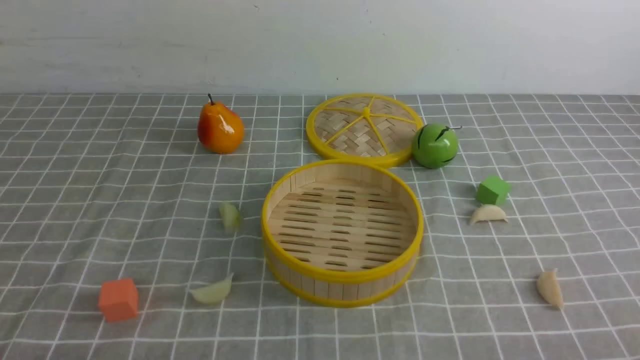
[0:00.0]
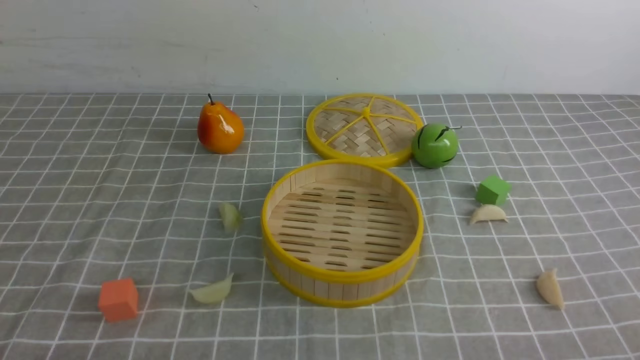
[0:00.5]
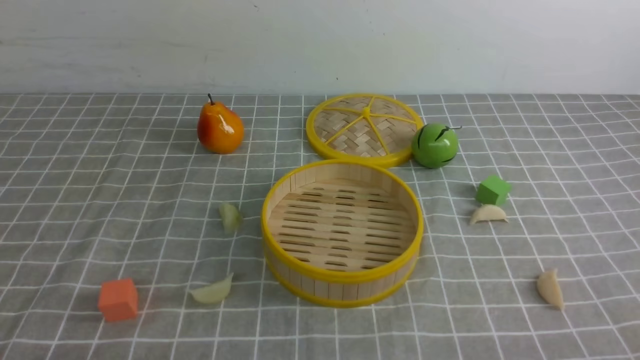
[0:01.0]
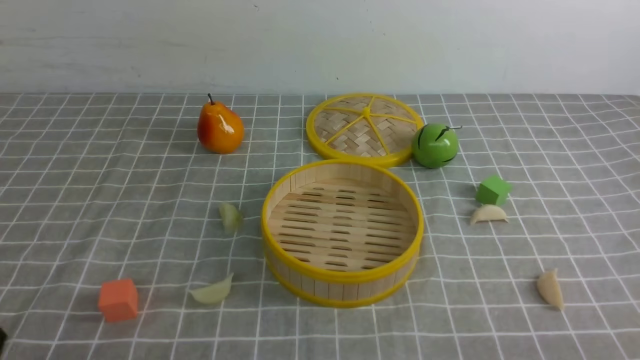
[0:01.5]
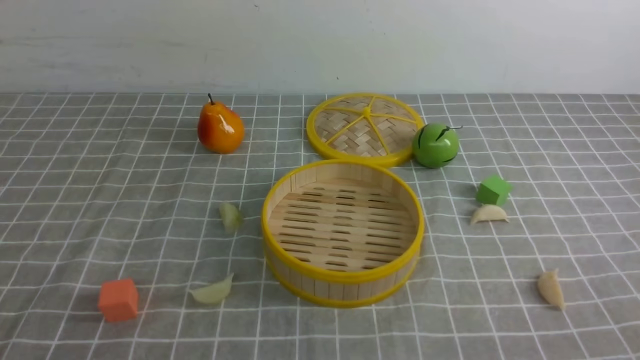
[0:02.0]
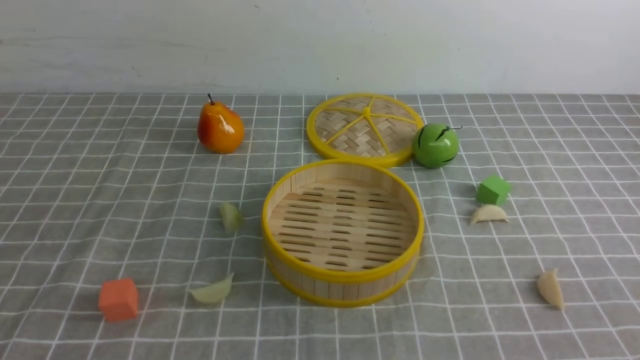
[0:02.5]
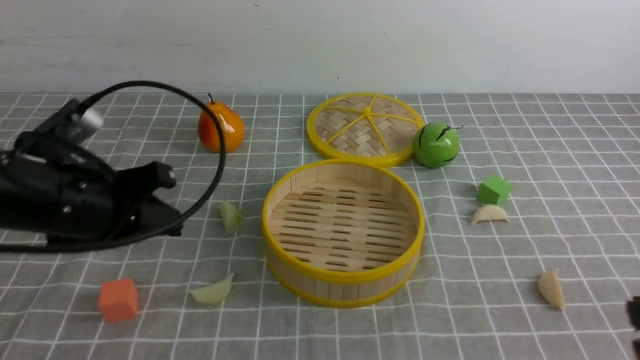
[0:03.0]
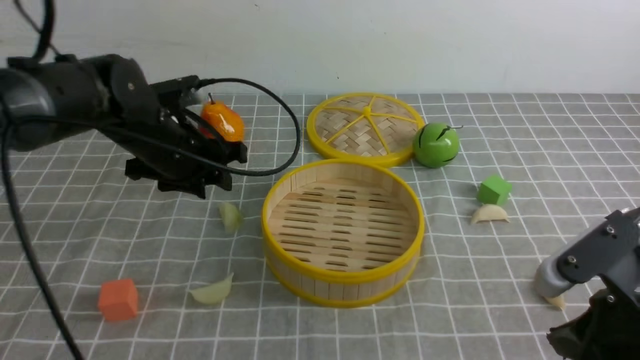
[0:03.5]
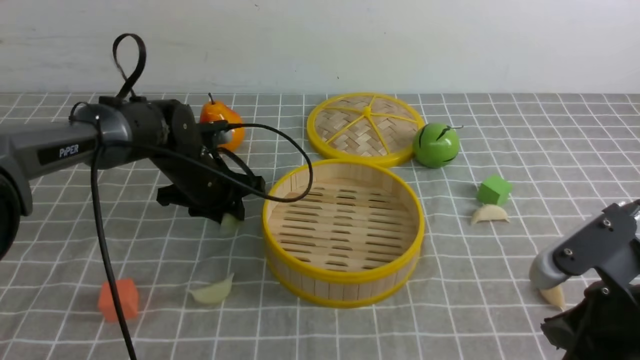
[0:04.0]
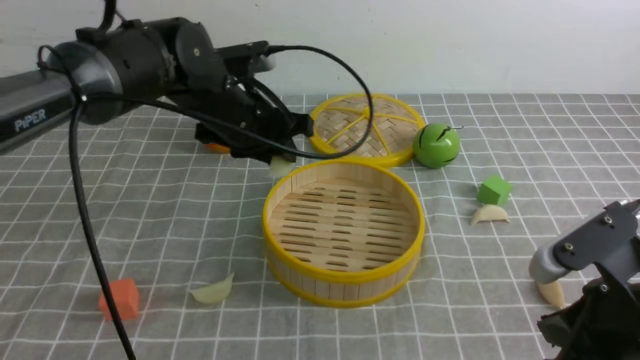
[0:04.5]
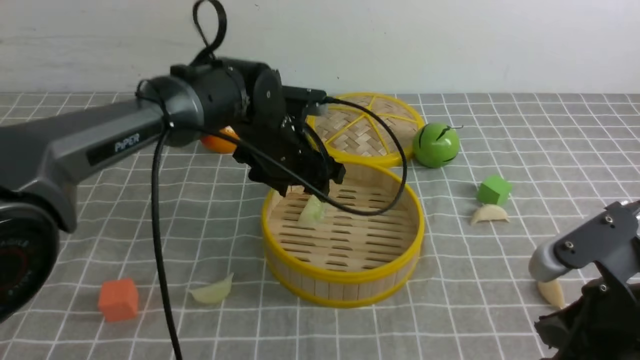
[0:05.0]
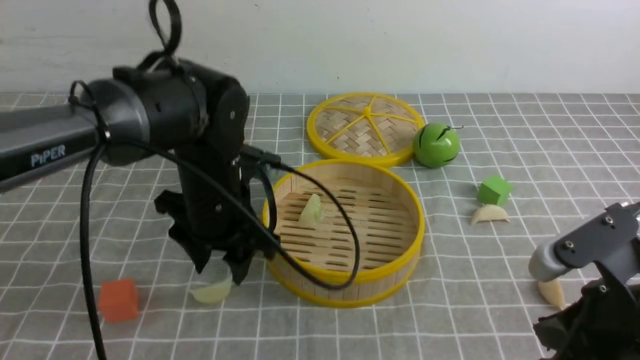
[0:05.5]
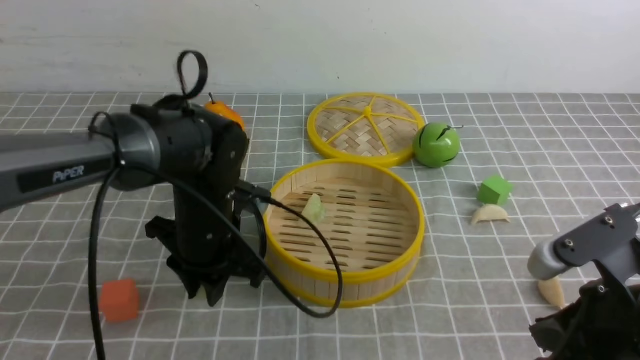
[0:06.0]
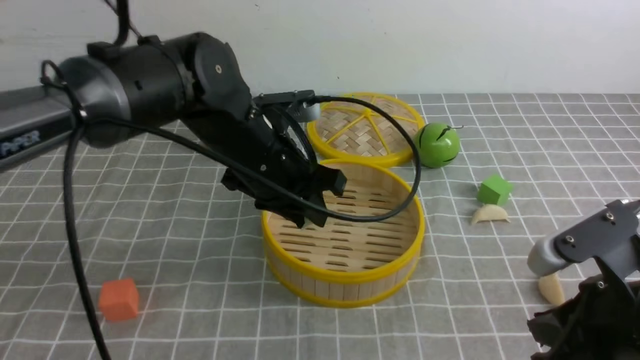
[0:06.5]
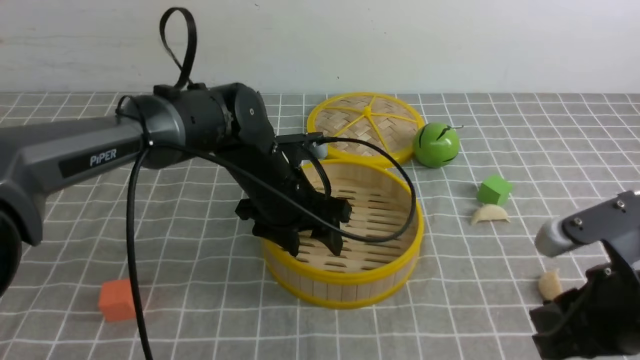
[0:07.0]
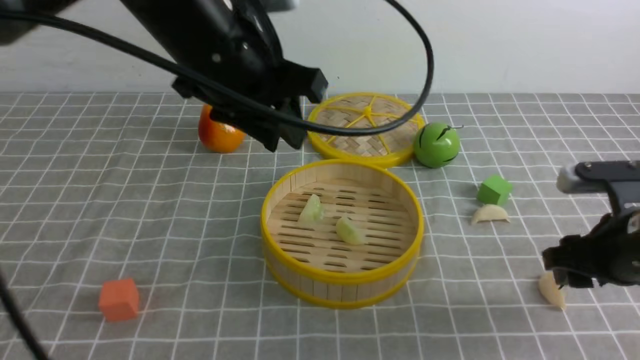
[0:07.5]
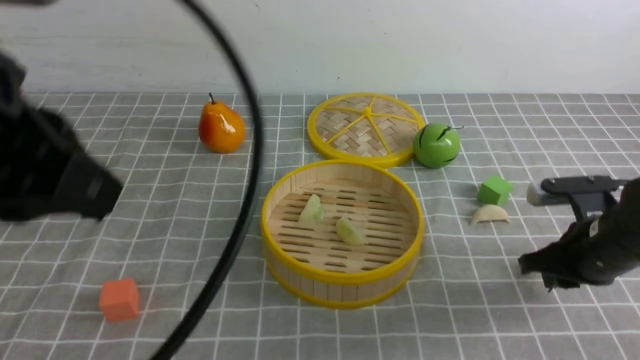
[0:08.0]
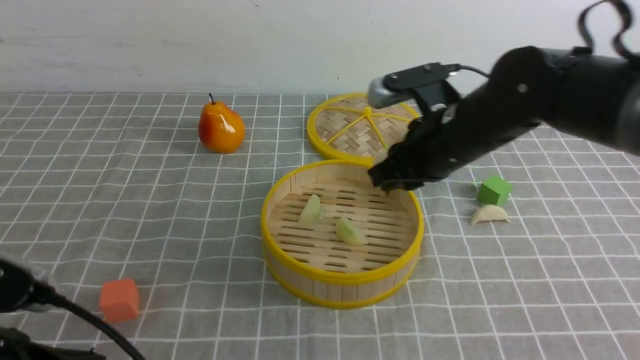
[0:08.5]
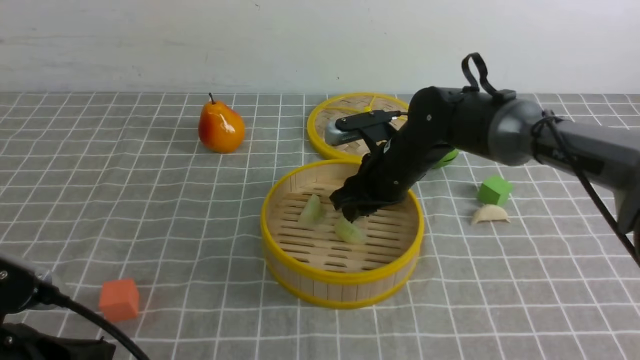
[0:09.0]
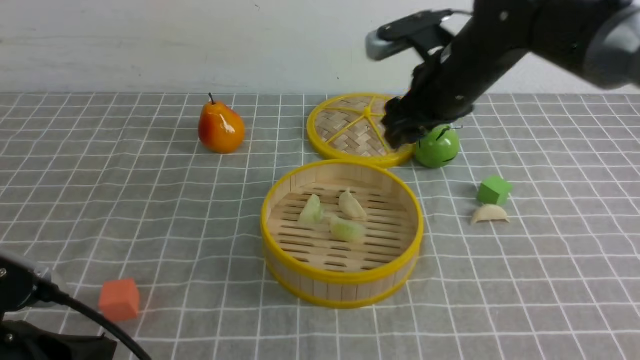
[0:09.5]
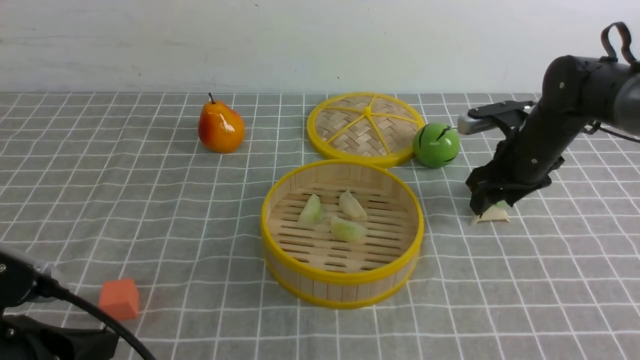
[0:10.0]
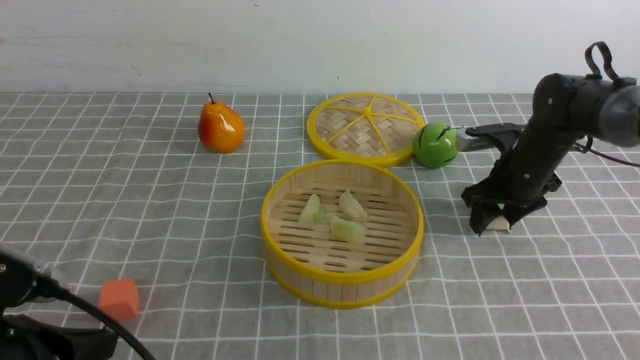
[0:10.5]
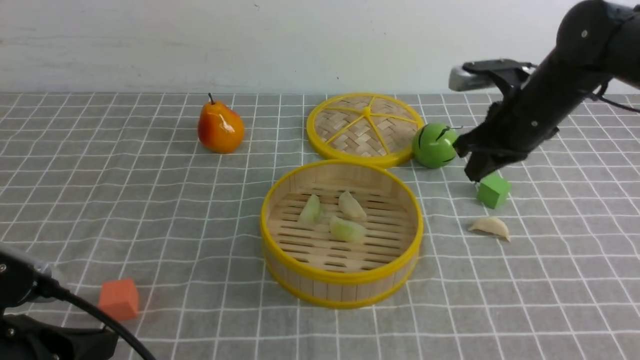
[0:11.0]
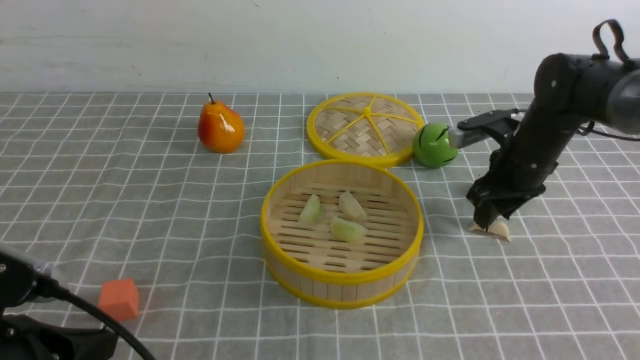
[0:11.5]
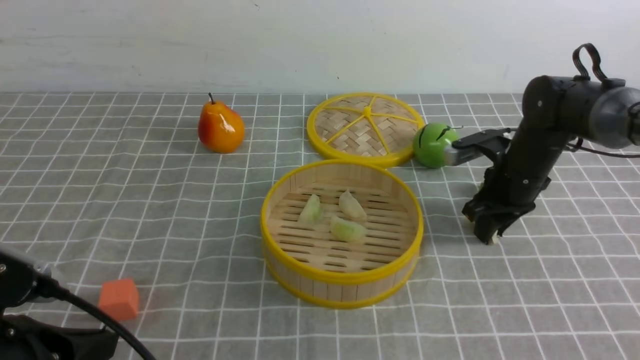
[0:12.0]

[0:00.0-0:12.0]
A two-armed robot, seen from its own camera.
Task of the whole recording: put the dumplings into the steamer on the table with the grey tablecloth.
Step, 0:00.0 to 0:04.0: use the left arm to grab a dumpling.
Step, 0:05.5 to 0:06.0: use the left arm to grab a dumpling.
Step, 0:06.5 to 0:07.0: use the left arm to put the dumpling into the steamer.
Step, 0:07.5 to 0:08.0: use the right arm to grab a dumpling.
Step, 0:08.5 to 0:09.0: use the right arm to put the dumpling into the steamer.
0:02.0 to 0:04.0: The right gripper travels forward and to the left by about 15 cm, and closes up. Meanwhile the left gripper moves forward, about 40 cm, and closes and opens again.
0:04.0 to 0:06.0: The left gripper shifts approximately 10 cm backward.
0:06.0 to 0:08.0: The left gripper swings up and down, about 25 cm each way, with 2 reversals, and closes its fingers. The right gripper travels forward and downward by roughly 15 cm.
0:08.0 to 0:10.0: The left gripper heads downward and backward, covering about 20 cm, while the right gripper goes about 15 cm forward, travels to the left and back again, approximately 20 cm each way, and opens.
0:10.0 to 0:12.0: The right gripper goes up and down, roughly 5 cm each way, reversing 2 times, and closes.

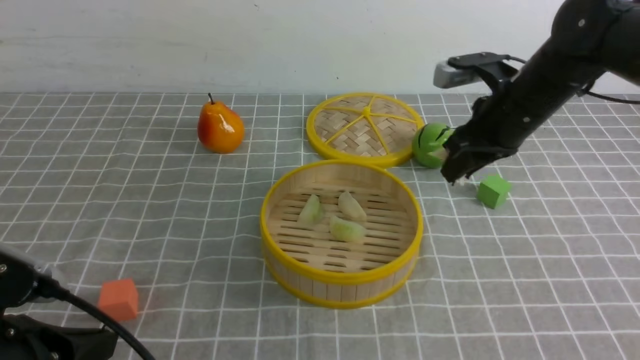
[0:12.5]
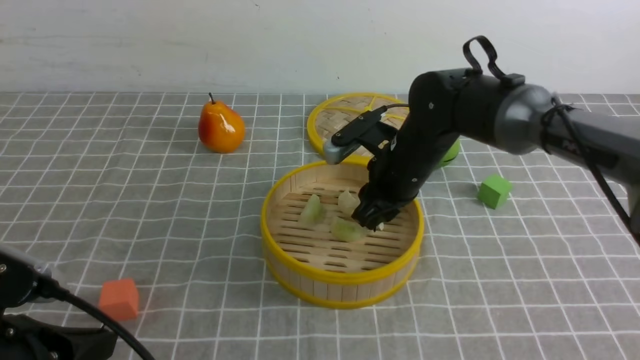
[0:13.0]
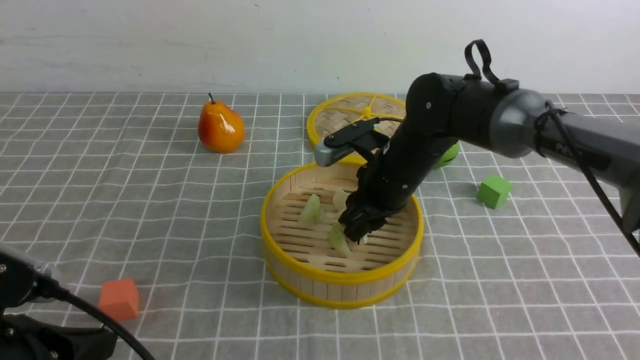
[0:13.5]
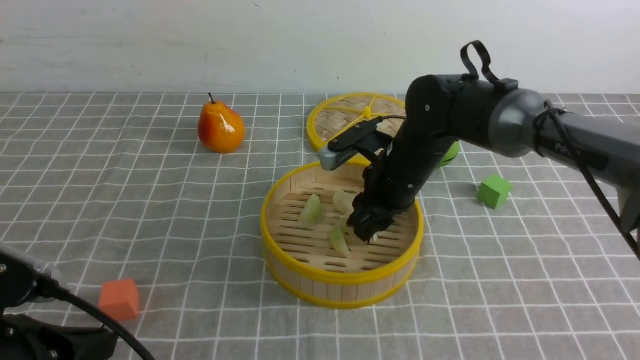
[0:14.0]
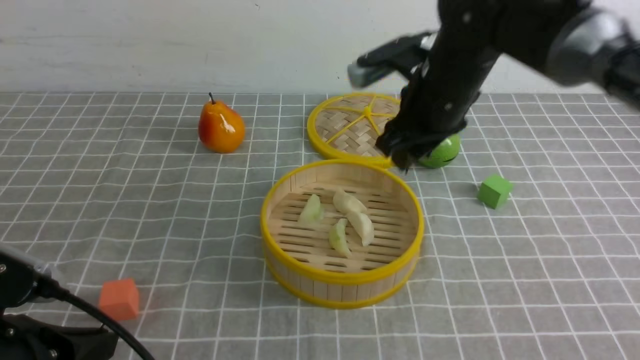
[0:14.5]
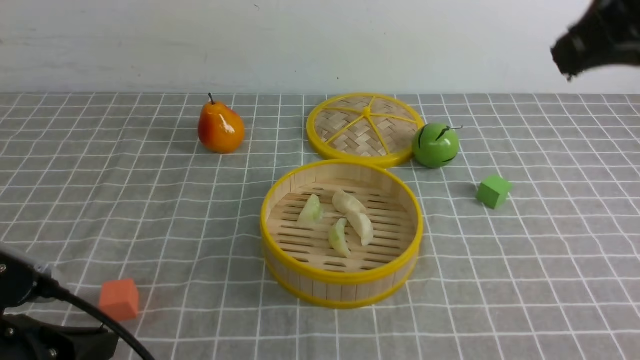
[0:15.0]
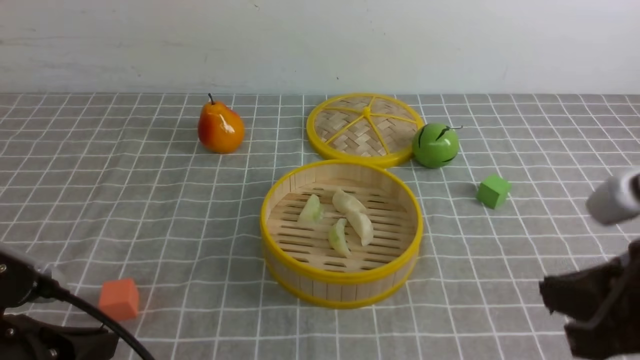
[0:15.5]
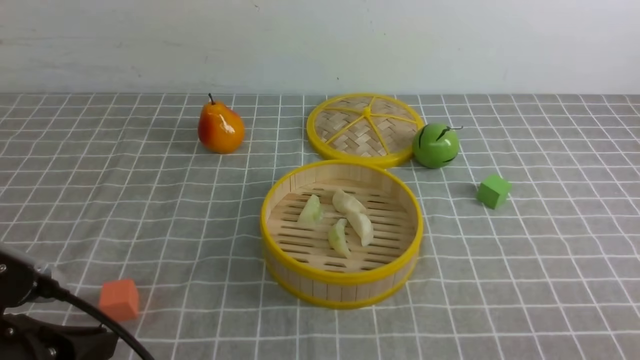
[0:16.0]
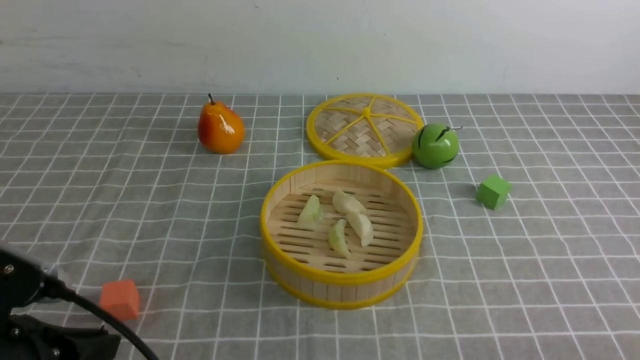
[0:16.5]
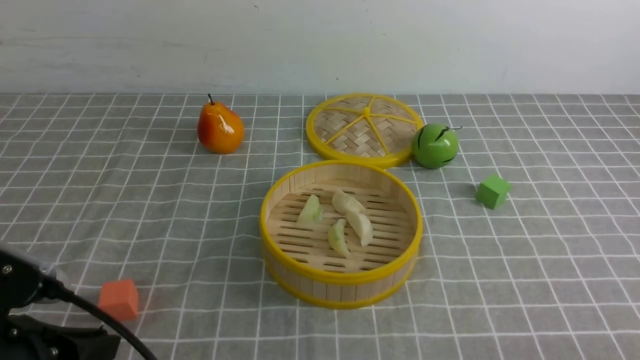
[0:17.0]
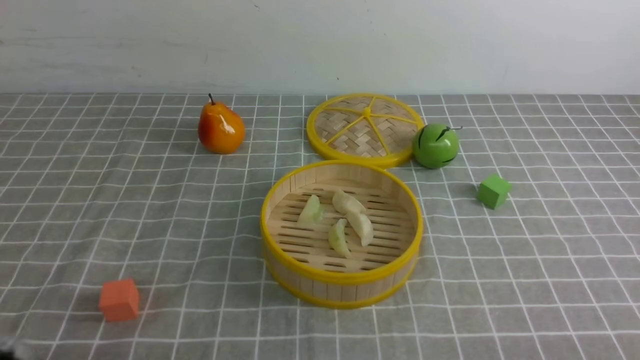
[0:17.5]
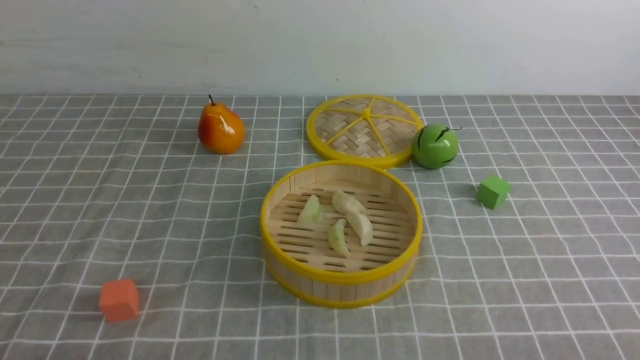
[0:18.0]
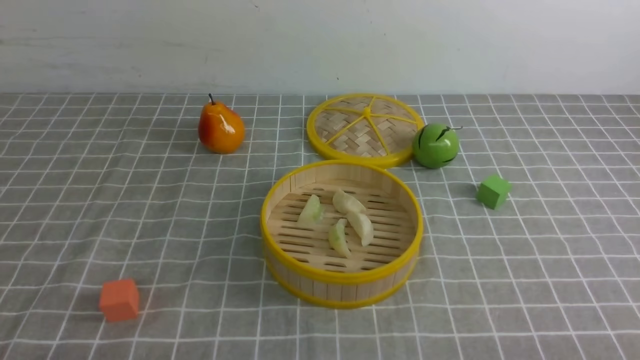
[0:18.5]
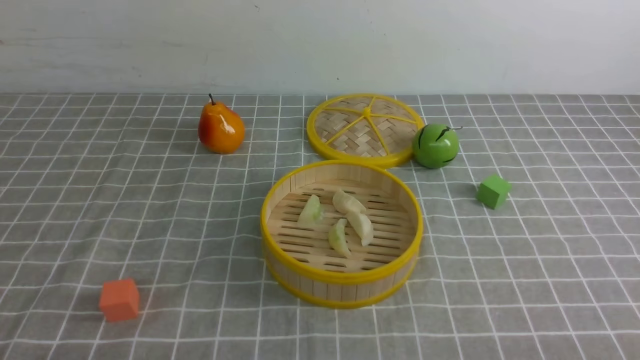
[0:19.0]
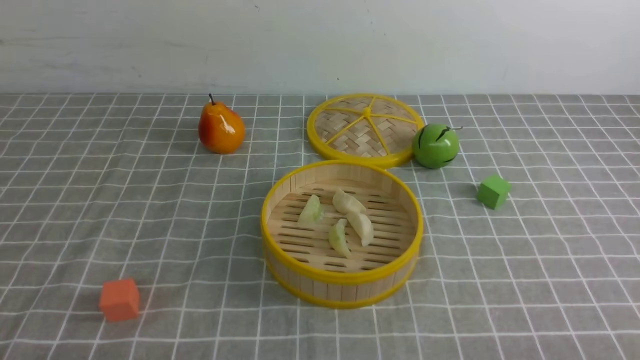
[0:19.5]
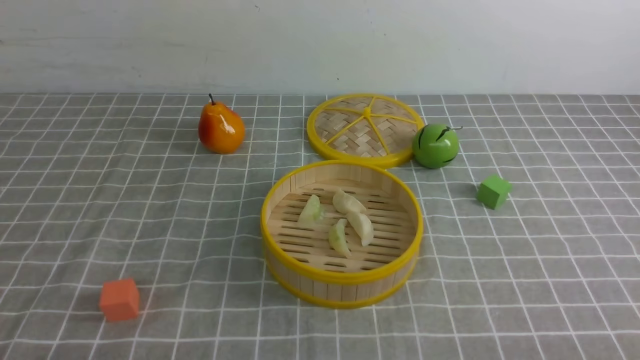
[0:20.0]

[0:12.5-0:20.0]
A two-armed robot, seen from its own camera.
Task of the whole recording: put the dumplings into the steamer on the table with the grey tablecloth.
Step, 0:12.5 to 0:14.0: use the right arm to put the dumpling into the steamer.
0:12.5 to 0:14.5: The right gripper moves to the left, approximately 10 cm.
0:14.5 to 0:16.5: The right gripper shifts some 40 cm backward and to the right, and closes.
0:16.5 to 0:18.0: The left gripper is displaced downward and backward by roughly 10 cm.
